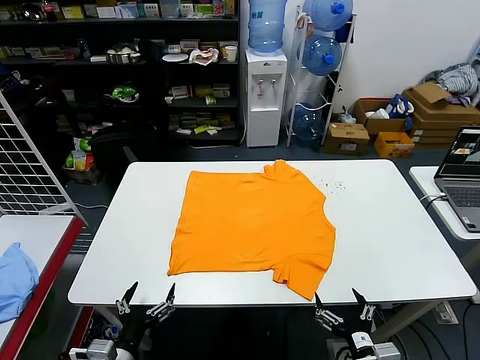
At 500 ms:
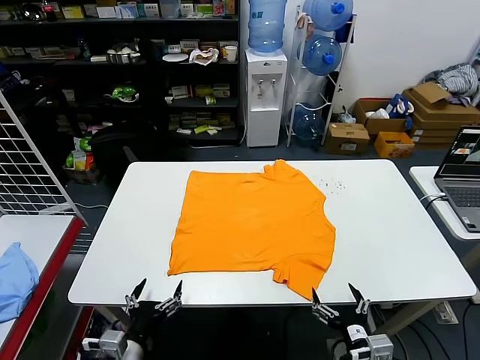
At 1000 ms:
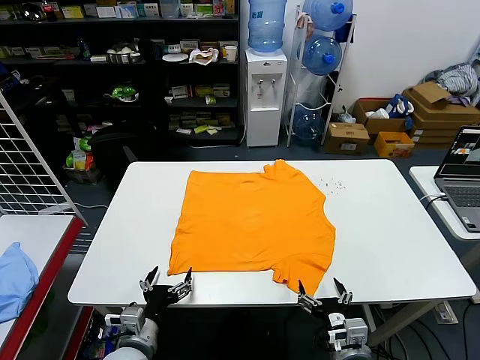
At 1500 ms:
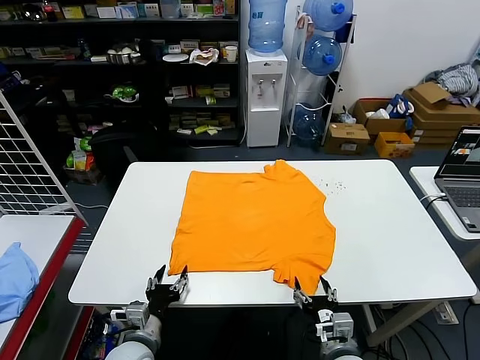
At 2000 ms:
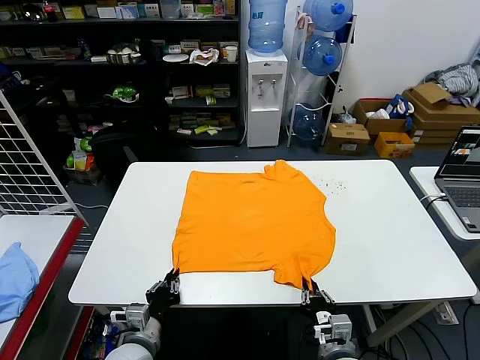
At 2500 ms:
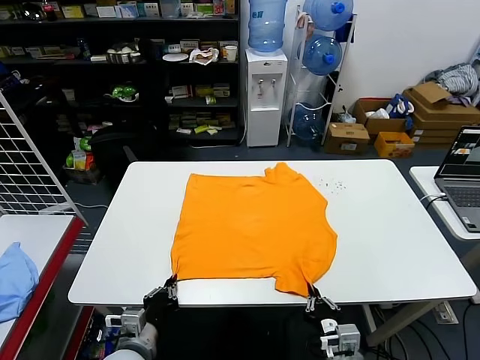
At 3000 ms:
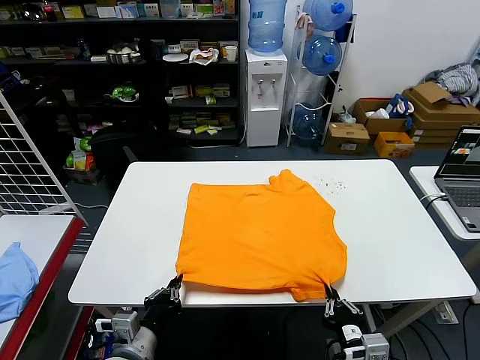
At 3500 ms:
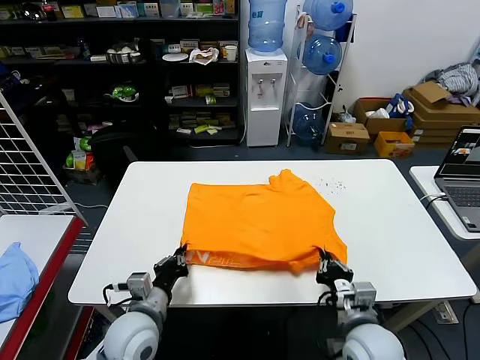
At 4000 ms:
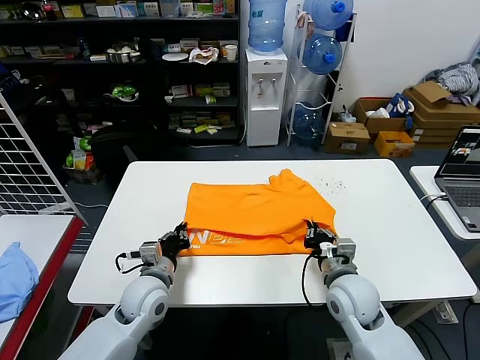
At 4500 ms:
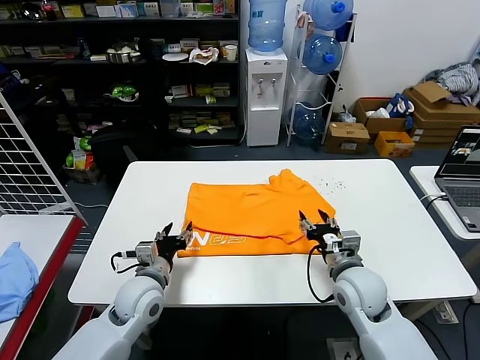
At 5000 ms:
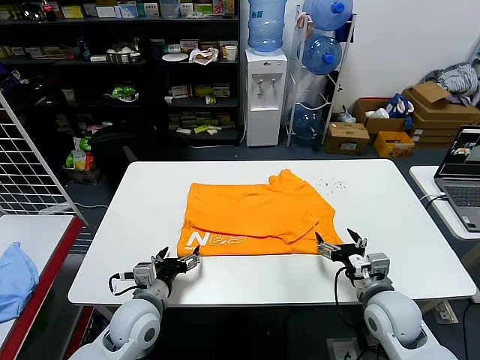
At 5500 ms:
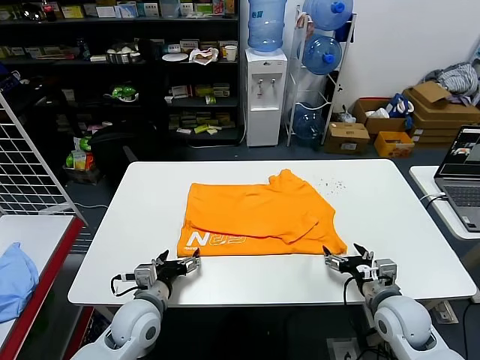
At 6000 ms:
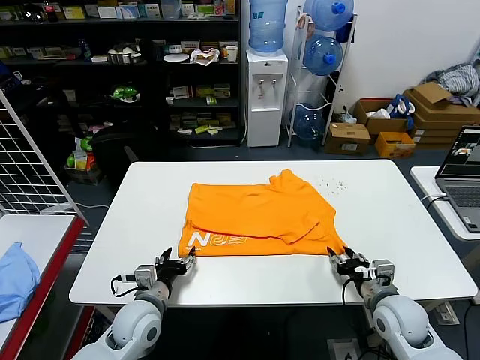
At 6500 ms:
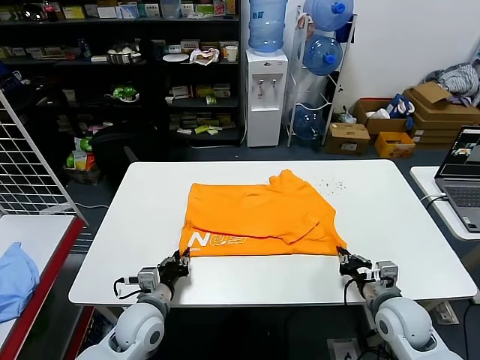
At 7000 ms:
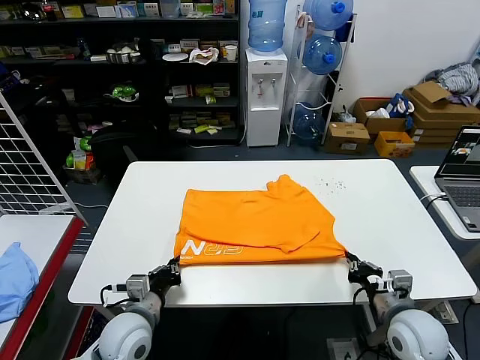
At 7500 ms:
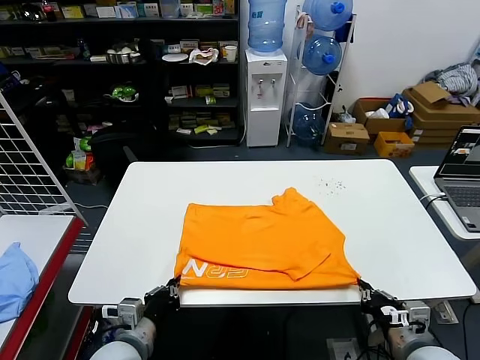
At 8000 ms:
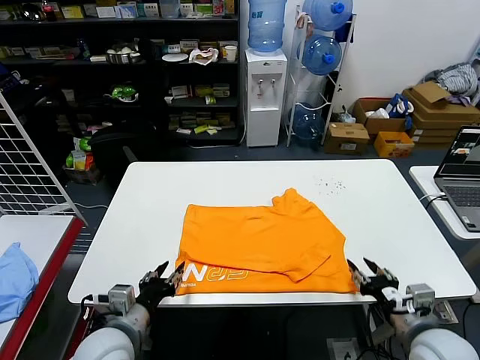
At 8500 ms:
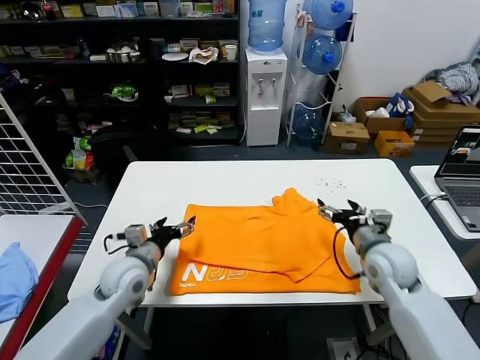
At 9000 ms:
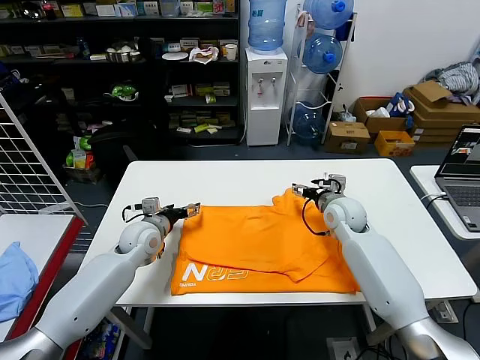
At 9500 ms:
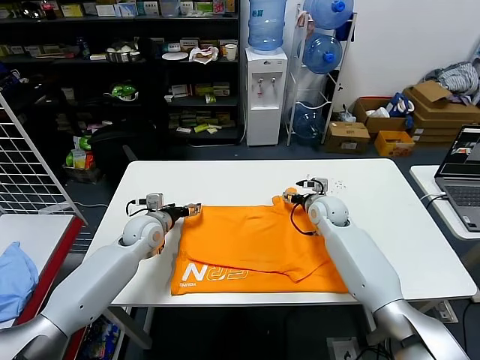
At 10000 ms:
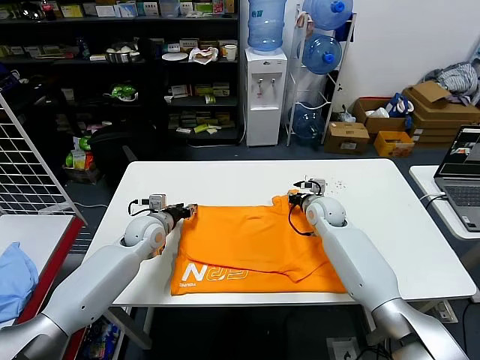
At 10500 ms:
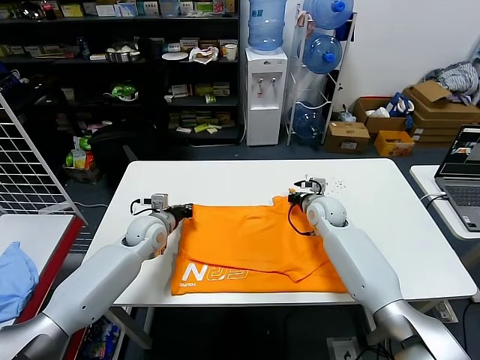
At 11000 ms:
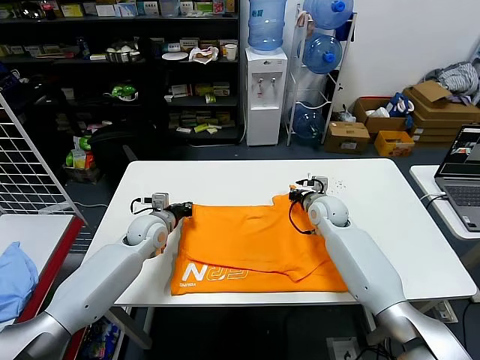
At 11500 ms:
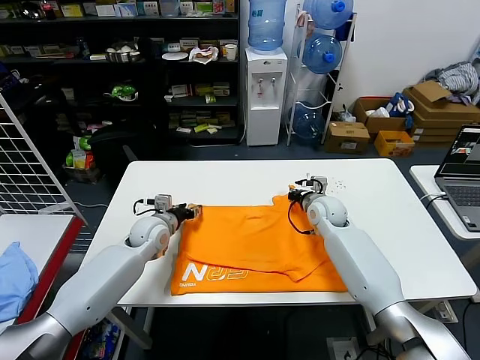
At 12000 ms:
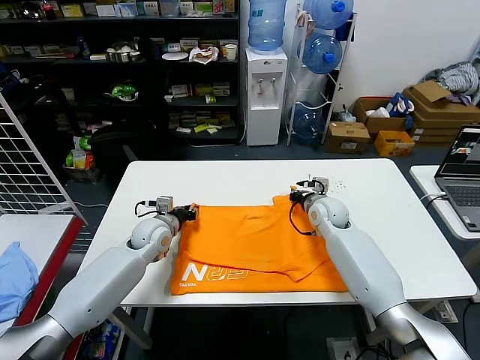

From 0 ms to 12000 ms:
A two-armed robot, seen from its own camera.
Task of the whole recording: fold and organize the clothes.
Step, from 0 ms to 2000 ms: use both grippers simultaneously to clamp the lower edge of the clothing fabric.
Step, from 2500 ms to 4000 ms: use both grippers to drag the lower edge of the fabric forward and fold it over the upper edge.
Step, from 4500 ms to 7500 ms: Drag the clothes downward with both gripper.
From 2000 ms to 4000 ms: Both grippers move forward and upward, roughly 15 cm.
From 4000 ms to 6000 ms: The right gripper travels to the right by roughly 10 cm, and opens, then closes again, while the left gripper moves some 5 cm, and opens.
From 6000 ms to 8000 ms: Both grippers travel together upward and backward, roughly 10 cm. The right gripper closes, then opens again, while the left gripper closes, then reopens.
From 8000 ms to 10000 ms: The two grippers go roughly 30 cm forward. The right gripper opens, then closes once more; the left gripper opens and closes again.
From 10000 ms to 12000 ms: The grippers make only small movements.

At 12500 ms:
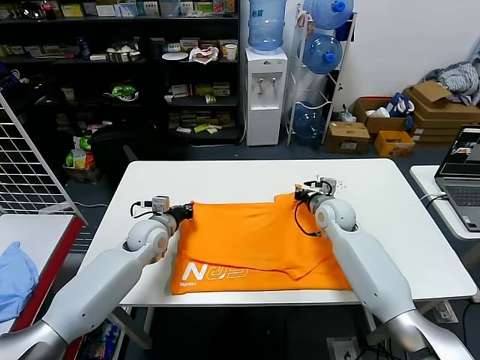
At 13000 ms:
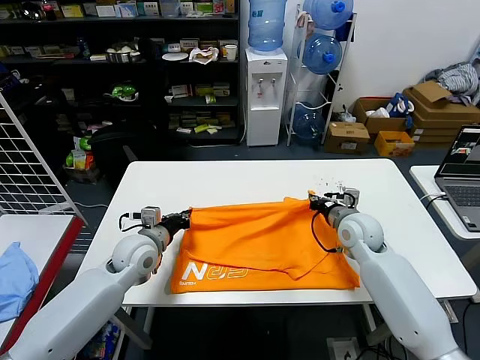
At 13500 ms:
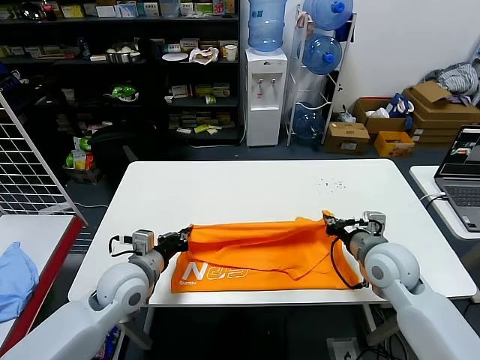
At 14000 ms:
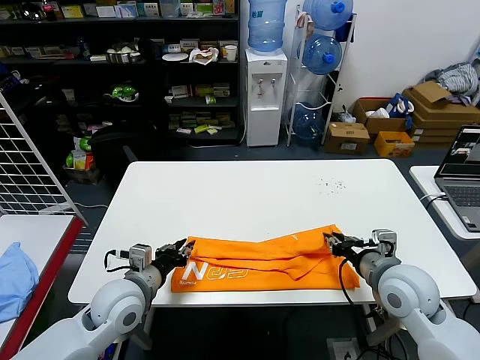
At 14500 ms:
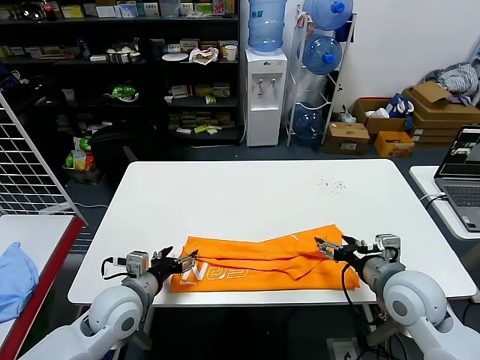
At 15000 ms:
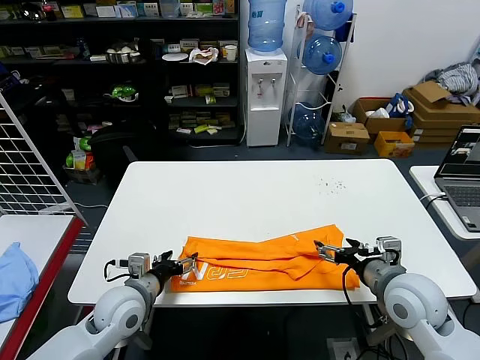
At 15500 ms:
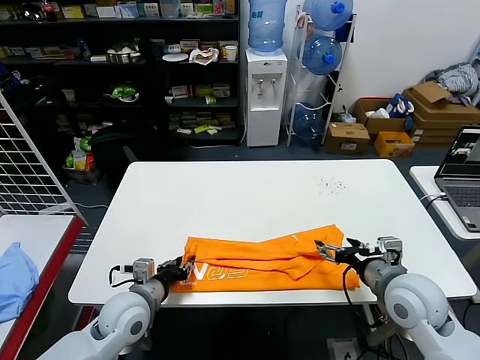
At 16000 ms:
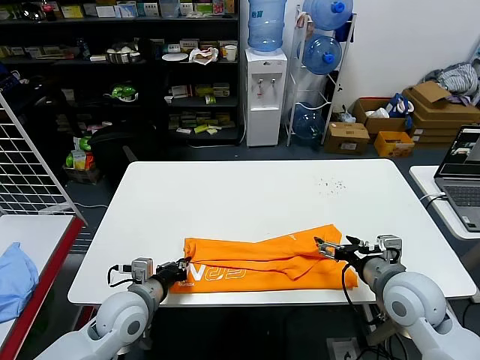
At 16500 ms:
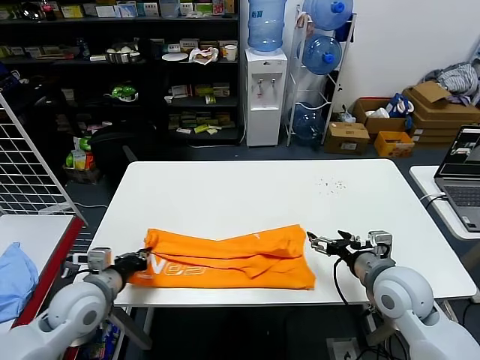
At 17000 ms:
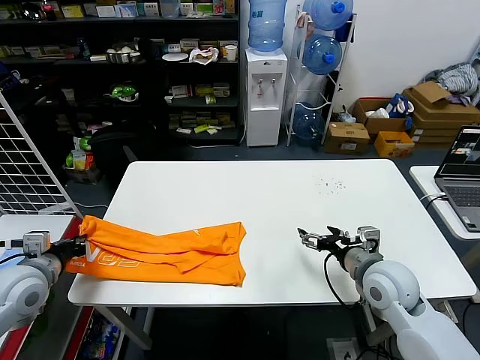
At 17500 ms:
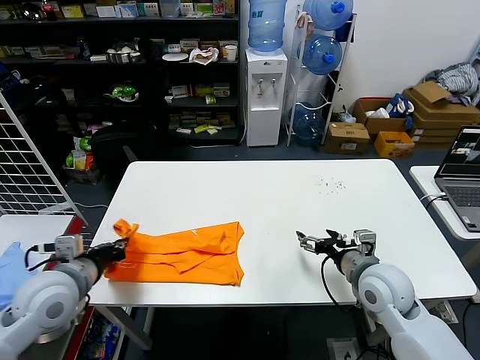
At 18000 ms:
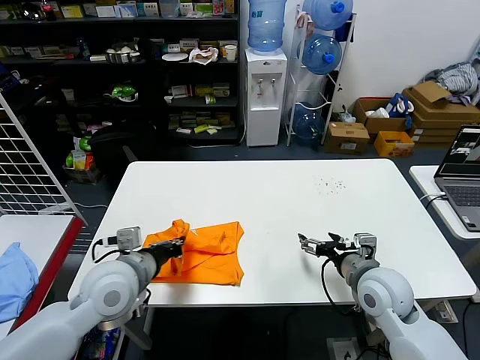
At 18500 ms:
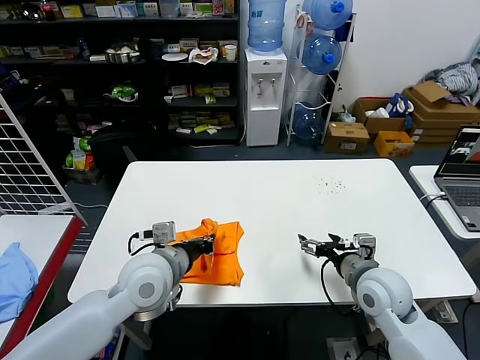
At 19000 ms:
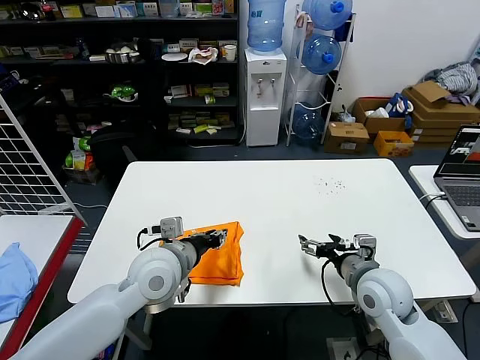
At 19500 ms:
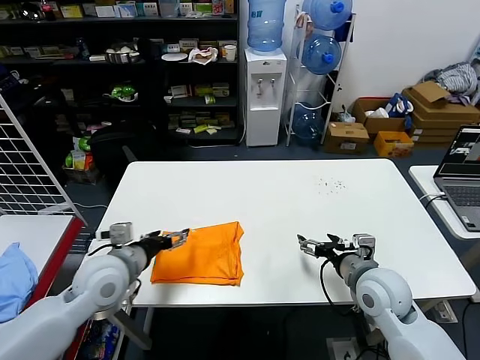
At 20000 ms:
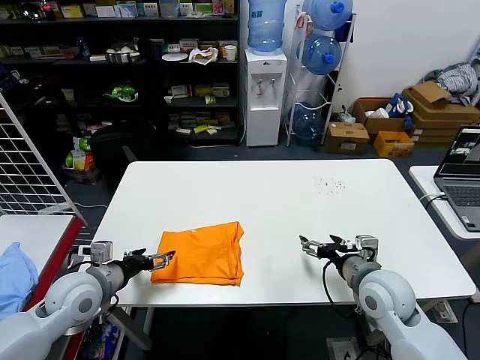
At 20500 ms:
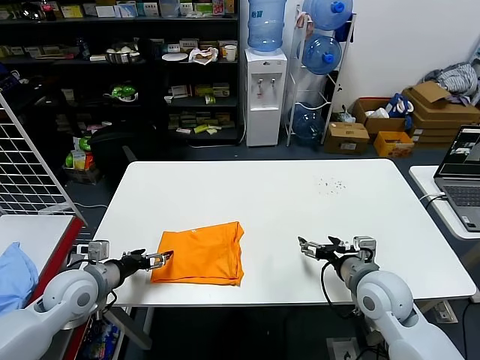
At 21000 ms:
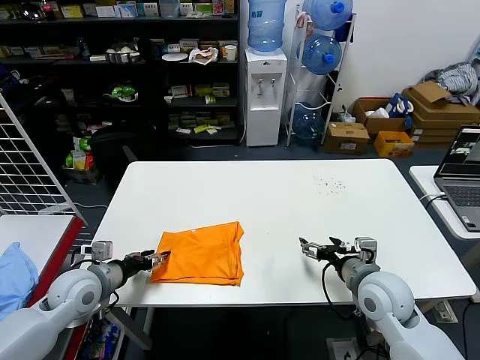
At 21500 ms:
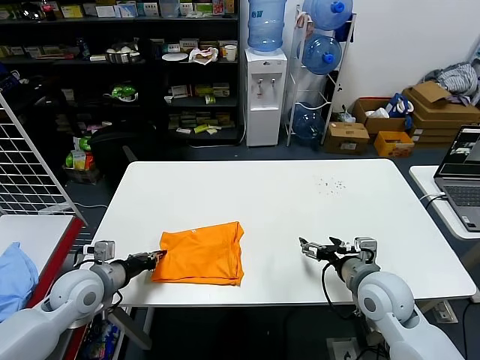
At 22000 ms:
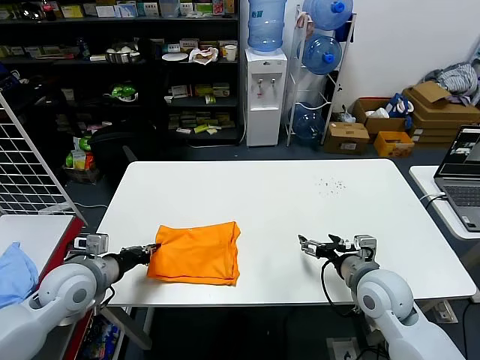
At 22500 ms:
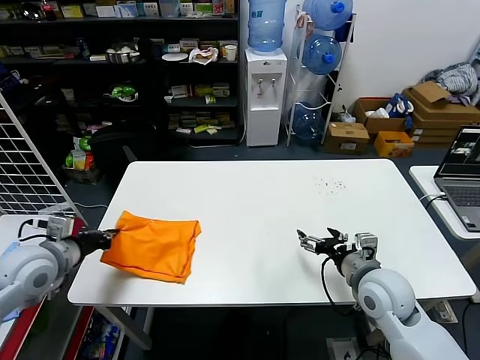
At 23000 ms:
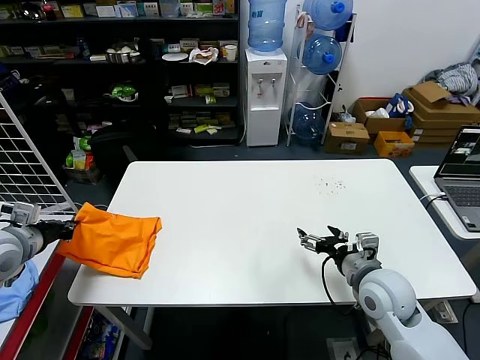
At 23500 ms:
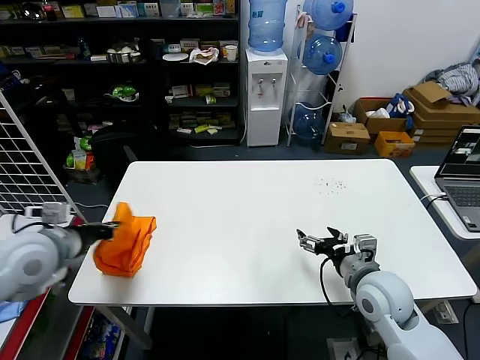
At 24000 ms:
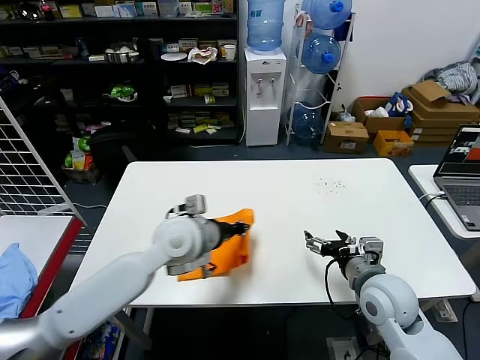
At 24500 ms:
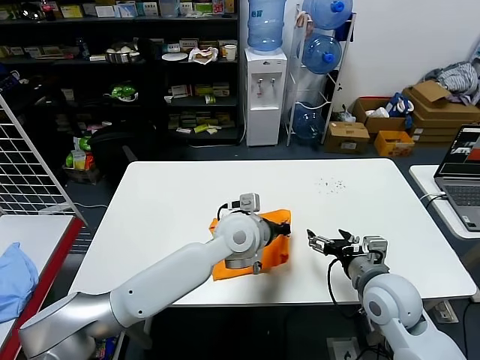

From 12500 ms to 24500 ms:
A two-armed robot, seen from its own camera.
Task of the whole recording: fold and organize the clothes.
Step, from 12500 ms to 13500 ms: use both grippers to drag the upper edge of the fabric backward and fold it over the lower edge.
Step, from 14000 ms to 15500 ms: use the left gripper to clamp the left edge of the fabric.
Step, from 16000 ms to 18500 ms: use the left gripper to drag the left edge of the fabric to the left and folds it over the right edge.
From 12500 ms to 14500 ms: Both grippers travel together backward, about 20 cm. The right gripper opens; the left gripper opens.
From 14500 ms to 16500 ms: The left gripper goes approximately 5 cm to the left, and closes.
From 16500 ms to 18500 ms: The left gripper is displaced to the right and upward by some 15 cm.
From 18500 ms to 20500 ms: The left gripper is displaced to the left and downward by about 20 cm, and opens its fingers.
From 20500 ms to 22500 ms: The left gripper is displaced upward by about 10 cm, and closes.
From 22500 ms to 24500 ms: The left gripper shifts roughly 40 cm to the right.

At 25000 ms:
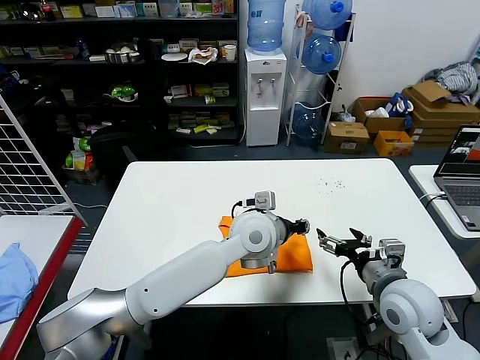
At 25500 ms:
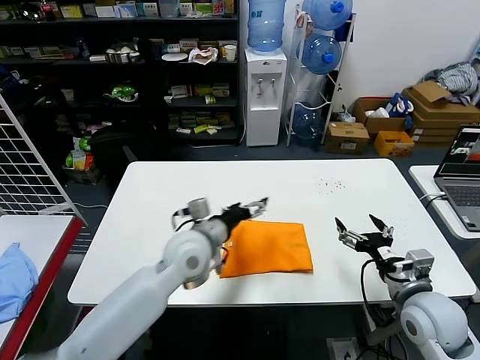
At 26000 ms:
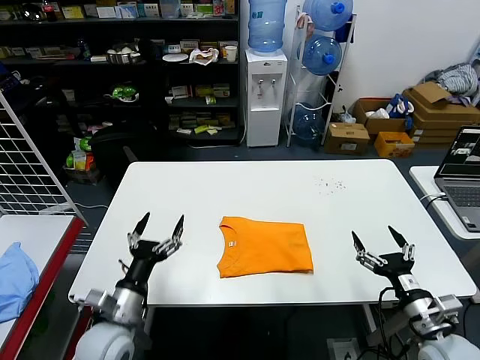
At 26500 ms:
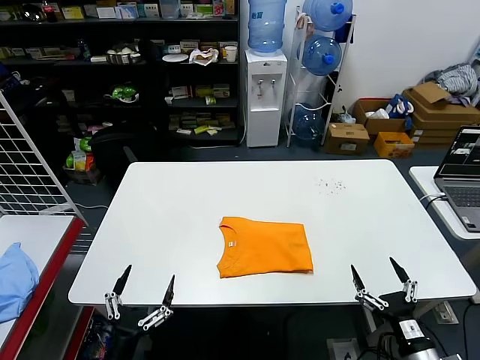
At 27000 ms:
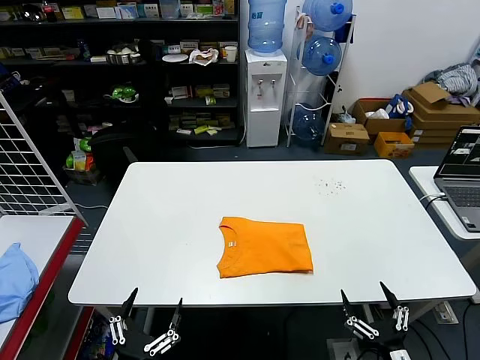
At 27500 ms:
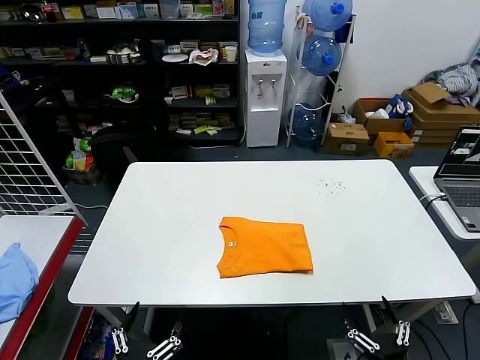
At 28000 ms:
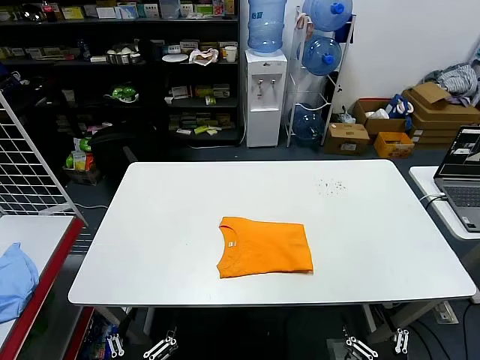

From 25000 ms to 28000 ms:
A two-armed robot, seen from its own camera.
Task of the whole recording: fold and organize the clothes.
From 25000 ms to 26500 ms: The left gripper shifts some 40 cm to the left, backward and downward, and opens its fingers, while the right gripper moves backward and downward, about 20 cm.
From 26500 ms to 28000 ms: Both grippers move backward, some 10 cm.
